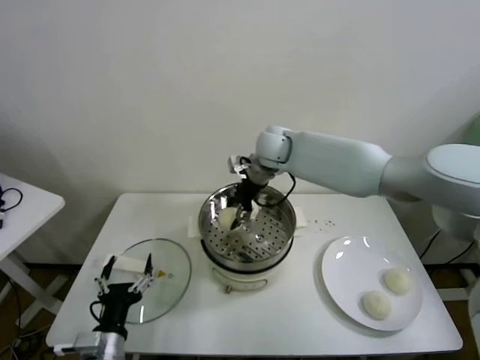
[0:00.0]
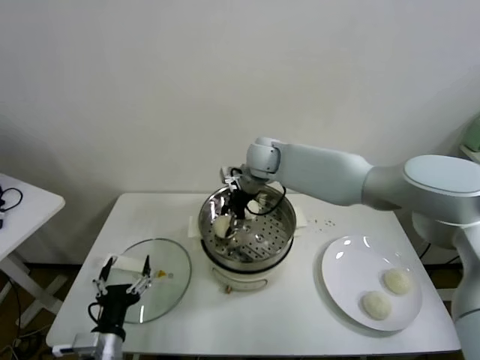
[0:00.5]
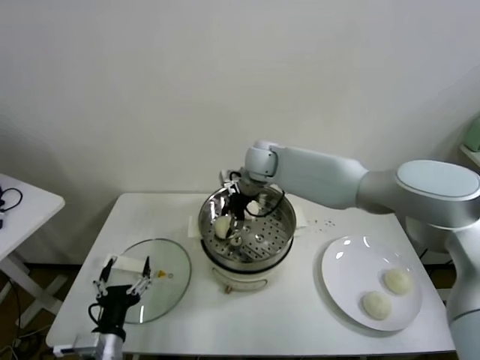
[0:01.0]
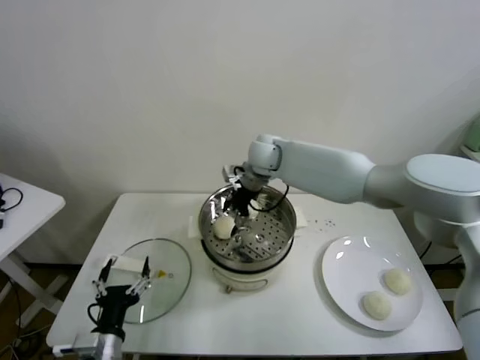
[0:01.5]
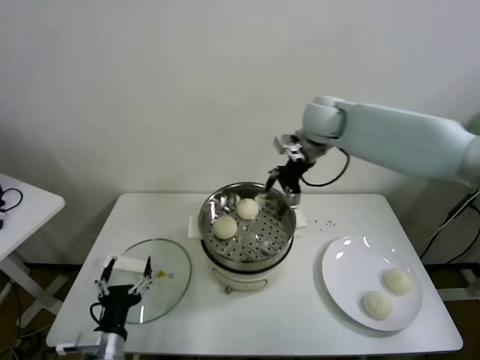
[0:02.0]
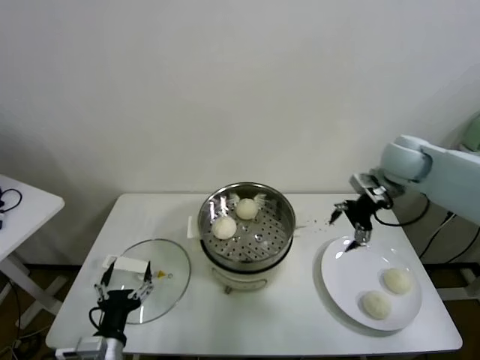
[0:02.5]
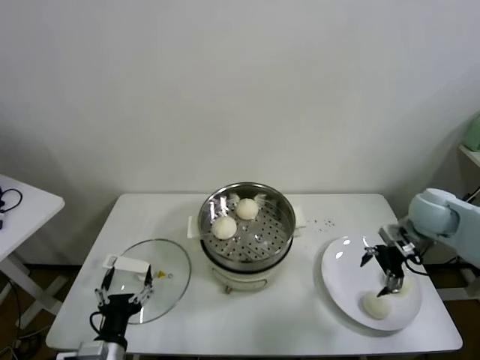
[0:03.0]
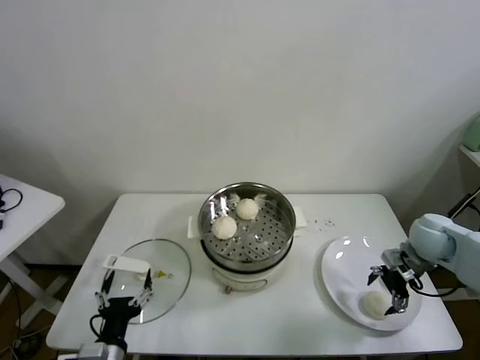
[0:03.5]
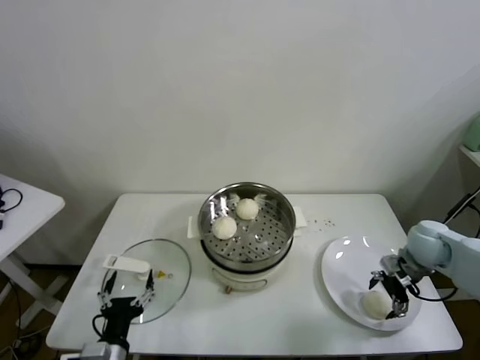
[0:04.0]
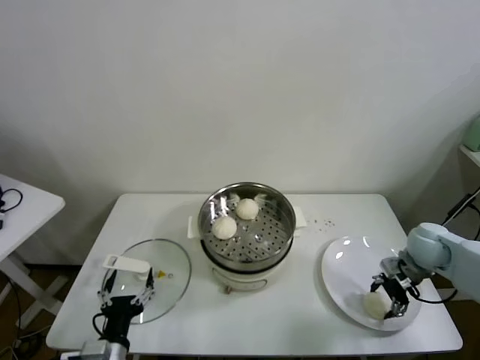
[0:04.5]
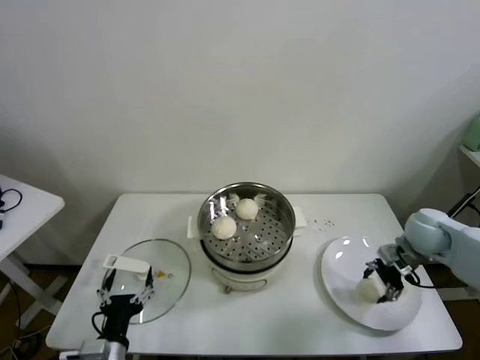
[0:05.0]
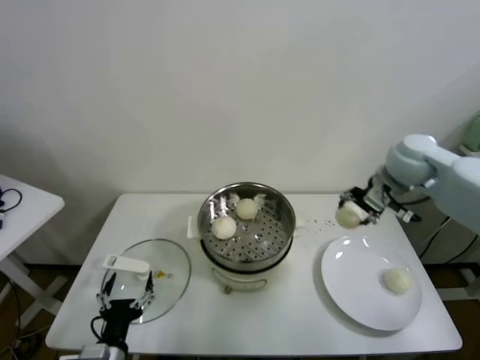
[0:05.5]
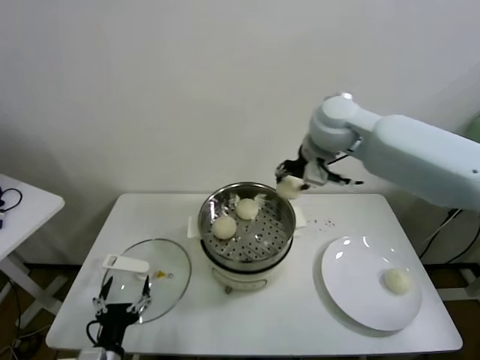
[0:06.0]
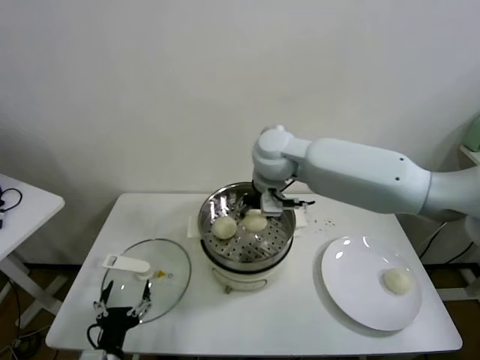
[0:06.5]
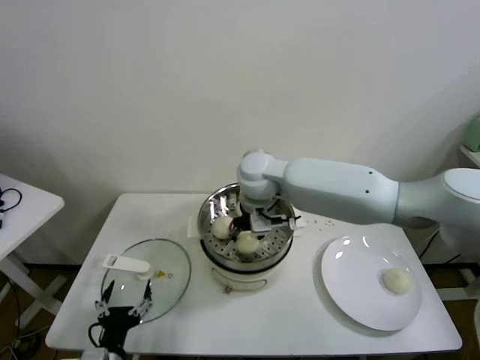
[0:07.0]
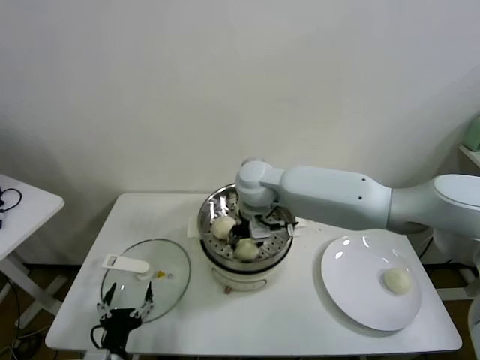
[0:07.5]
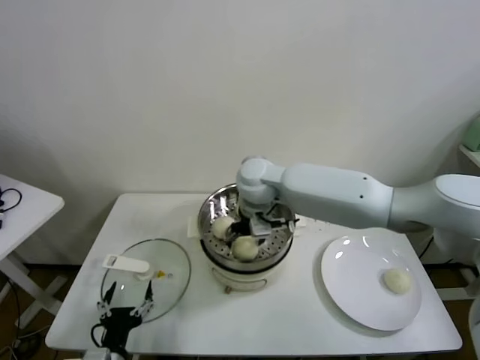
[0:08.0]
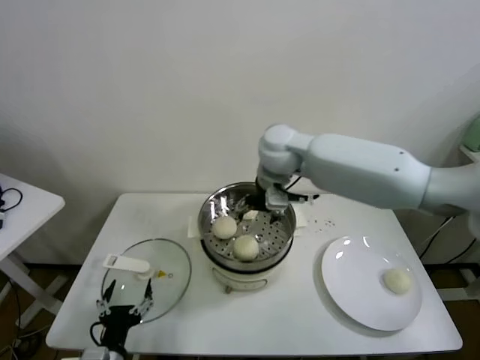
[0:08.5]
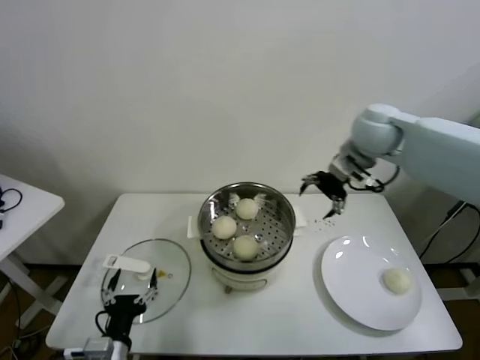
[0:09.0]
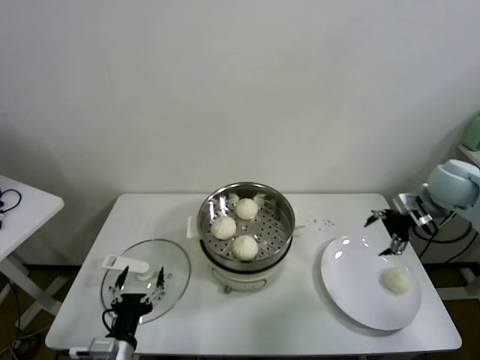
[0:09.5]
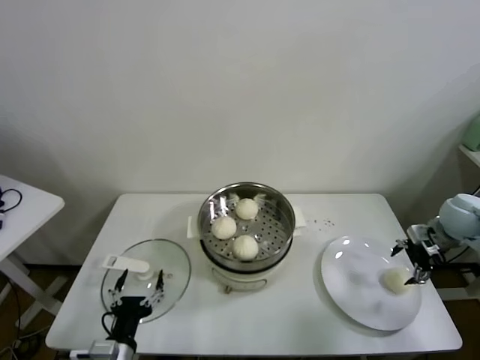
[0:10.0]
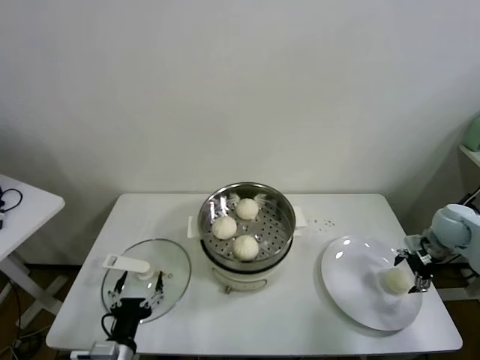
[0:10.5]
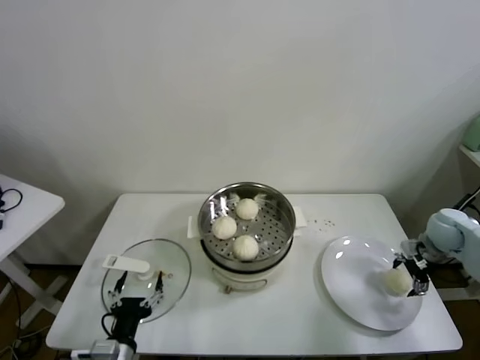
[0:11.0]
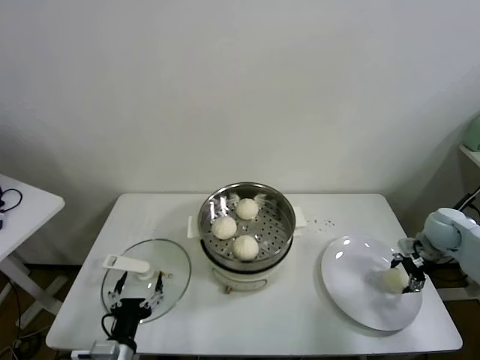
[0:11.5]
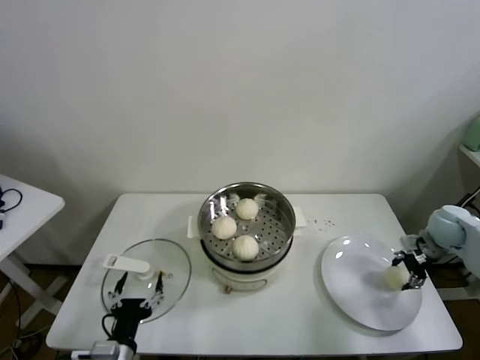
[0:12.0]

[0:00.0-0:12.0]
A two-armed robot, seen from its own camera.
Task of the whole recording: take steamed baozi put them in steamer.
Step, 0:01.5 to 0:04.5: Grasp the baozi in the plate with right gripper.
Step, 0:05.0 to 0:08.0: Place the baozi on the steamer with right gripper.
Step, 0:08.5 to 0:11.5: Grasp the baozi in the plate with right gripper.
0:00.0 to 0:02.0: The right gripper travels to the right and upward by roughly 15 cm, and opens up.
0:02.0 to 0:04.0: The right gripper heads downward, to the right and backward, covering some 35 cm.
0:04.0 to 0:06.0: The right gripper moves upward and to the left, about 35 cm, and closes its fingers.
0:06.0 to 0:08.0: The right gripper shifts about 20 cm to the left and downward, and opens up.
0:08.0 to 0:10.0: The right gripper goes roughly 50 cm to the right.
0:10.0 to 0:12.0: The right gripper travels downward by approximately 5 cm, and closes up.

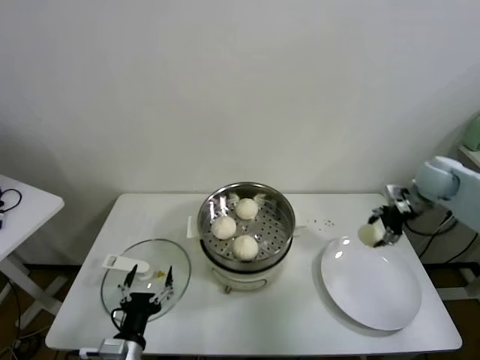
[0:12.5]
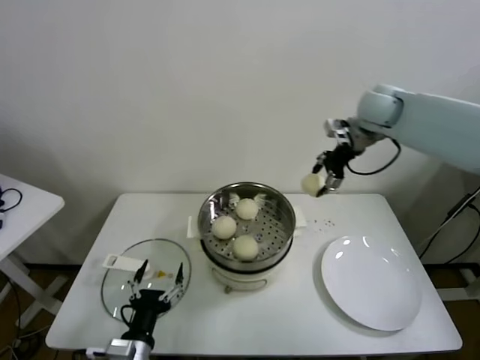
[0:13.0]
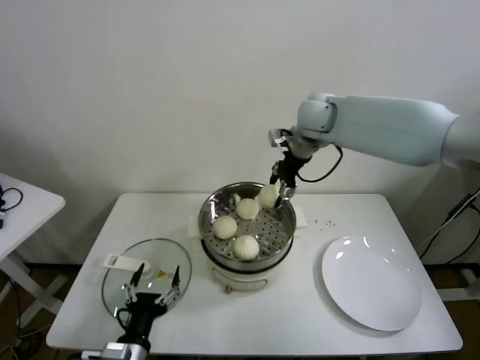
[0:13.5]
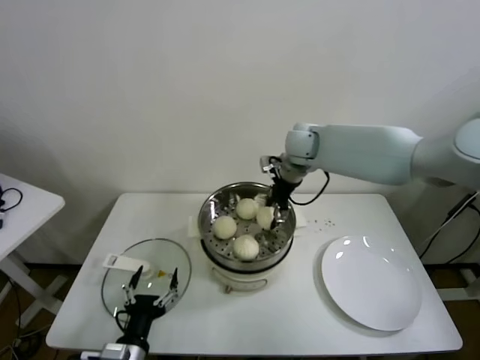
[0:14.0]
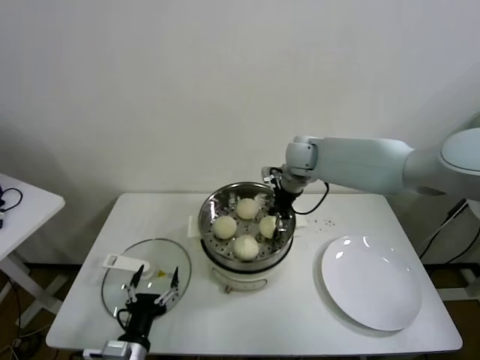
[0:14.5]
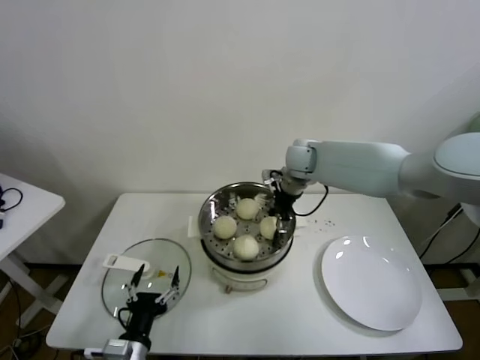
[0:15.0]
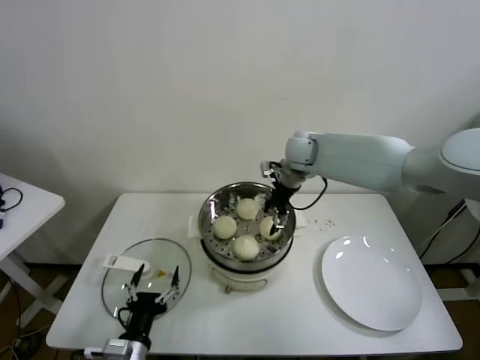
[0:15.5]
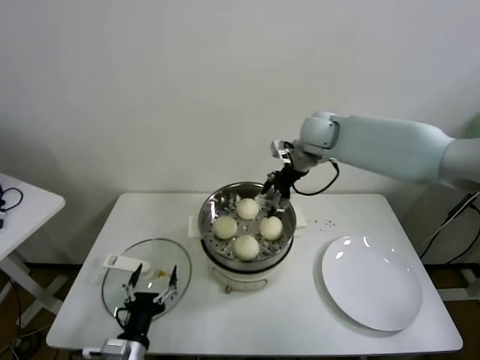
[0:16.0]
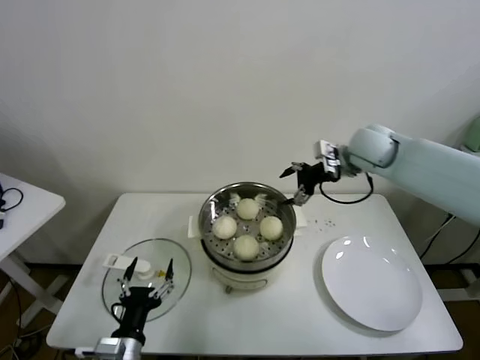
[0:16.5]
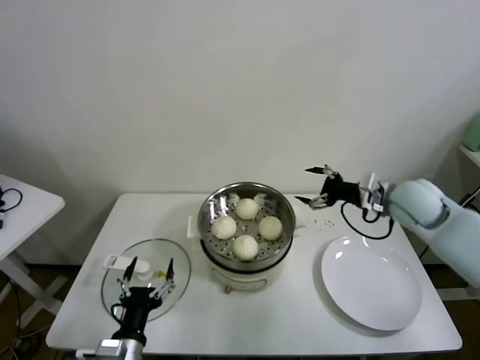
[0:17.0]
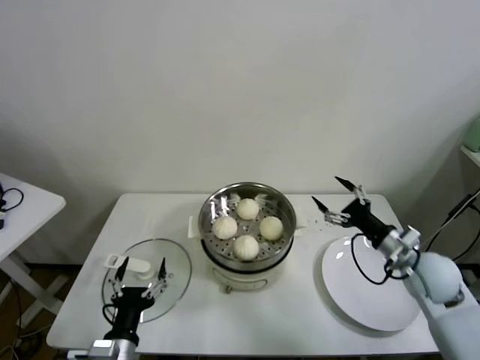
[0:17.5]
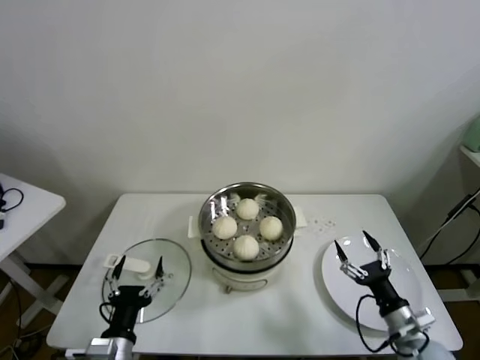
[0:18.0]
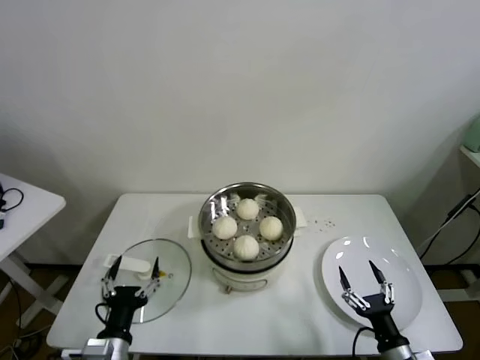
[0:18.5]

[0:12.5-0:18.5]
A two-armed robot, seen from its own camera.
Task of the whole recording: take steamed baozi put them in steamer.
Step, 0:12.5 to 0:15.0: Place the baozi on the steamer with right gripper.
0:12.5 to 0:14.5: The right gripper is displaced to the left by approximately 30 cm.
0:14.5 to 0:16.5: The right gripper is displaced to the right and upward by approximately 15 cm, and opens up.
0:16.5 to 0:18.5: The right gripper heads backward and downward, covering roughly 50 cm.
